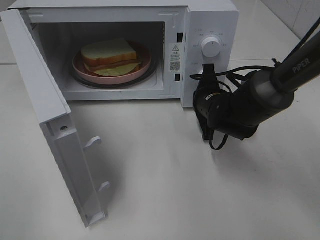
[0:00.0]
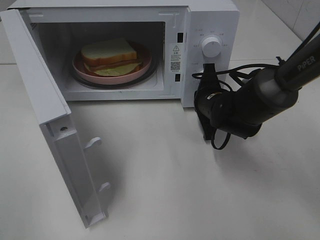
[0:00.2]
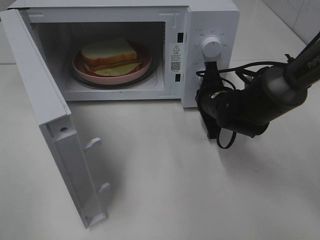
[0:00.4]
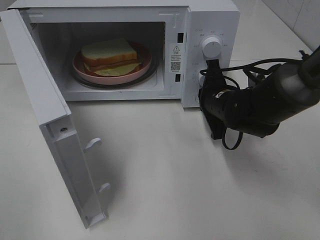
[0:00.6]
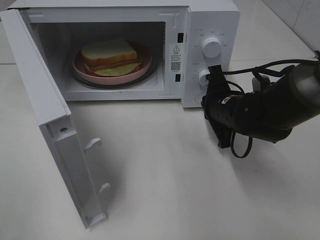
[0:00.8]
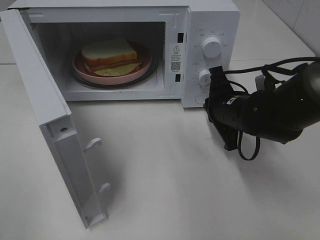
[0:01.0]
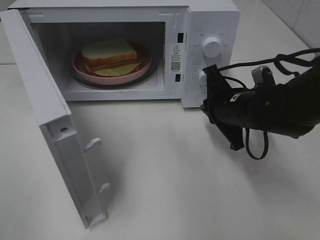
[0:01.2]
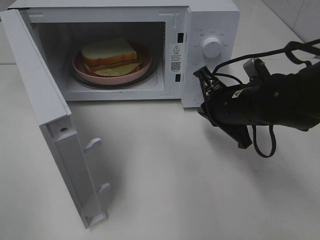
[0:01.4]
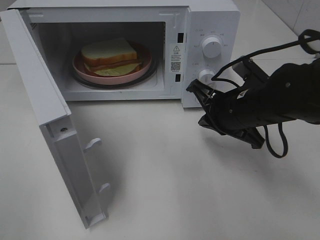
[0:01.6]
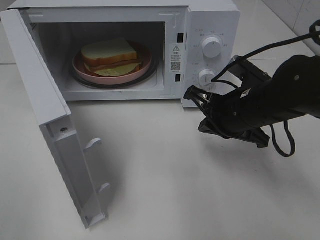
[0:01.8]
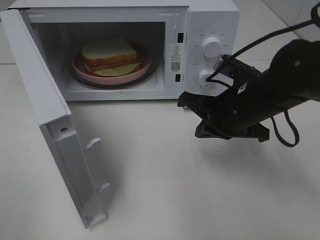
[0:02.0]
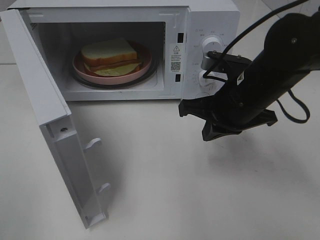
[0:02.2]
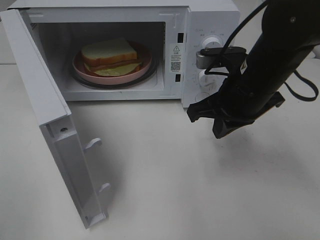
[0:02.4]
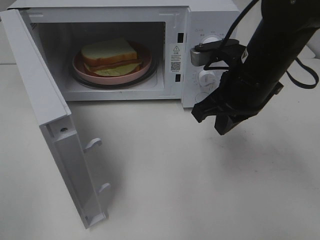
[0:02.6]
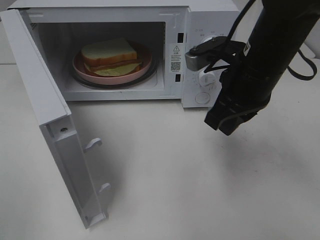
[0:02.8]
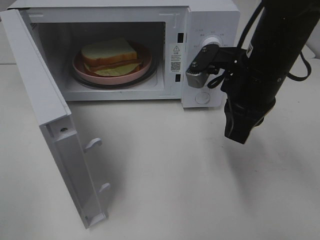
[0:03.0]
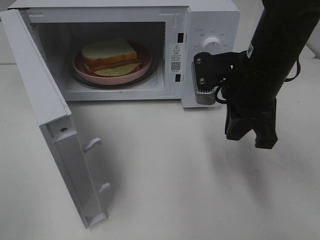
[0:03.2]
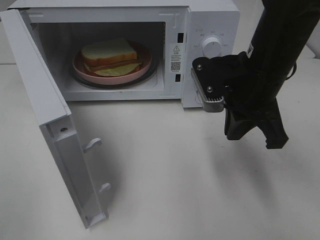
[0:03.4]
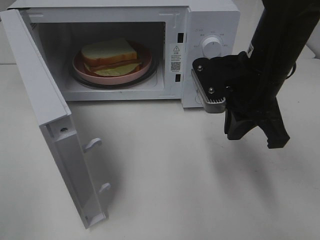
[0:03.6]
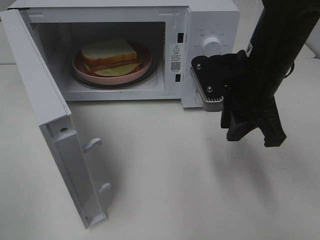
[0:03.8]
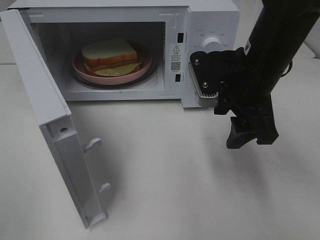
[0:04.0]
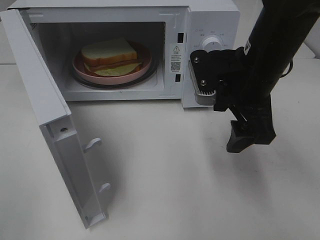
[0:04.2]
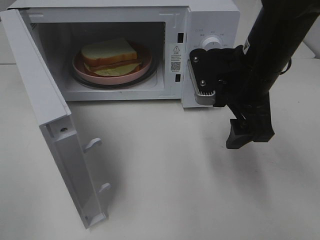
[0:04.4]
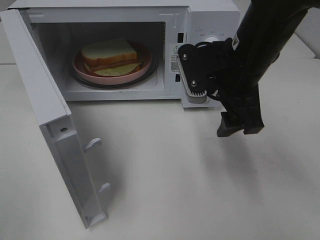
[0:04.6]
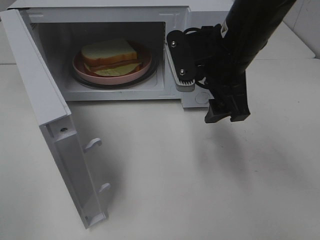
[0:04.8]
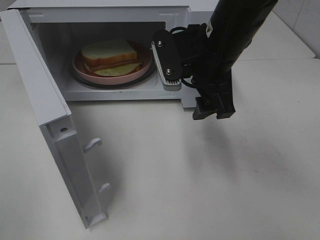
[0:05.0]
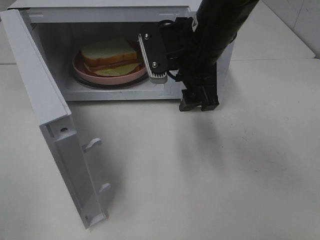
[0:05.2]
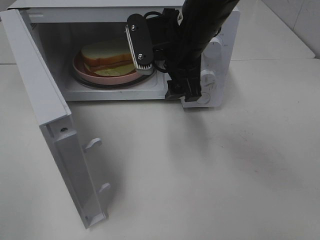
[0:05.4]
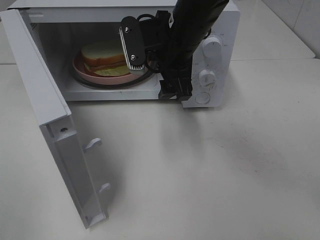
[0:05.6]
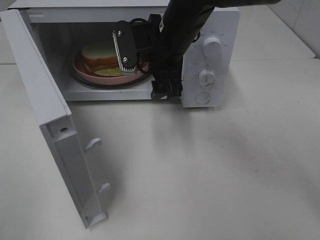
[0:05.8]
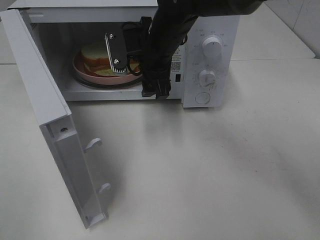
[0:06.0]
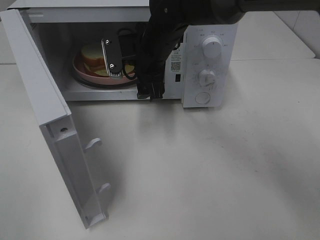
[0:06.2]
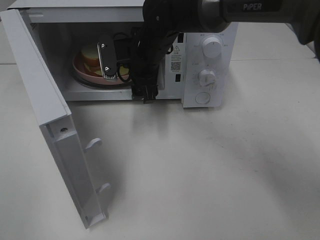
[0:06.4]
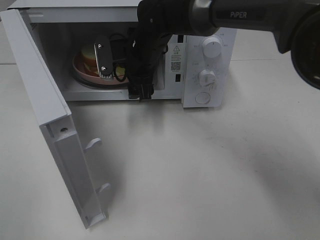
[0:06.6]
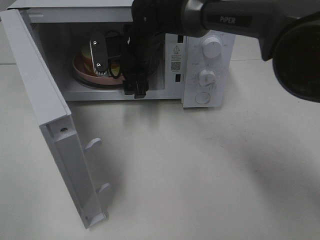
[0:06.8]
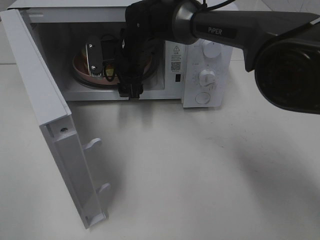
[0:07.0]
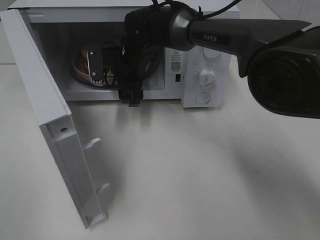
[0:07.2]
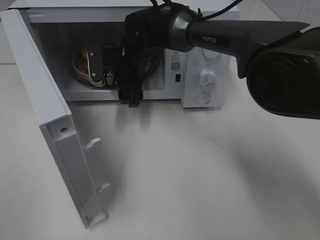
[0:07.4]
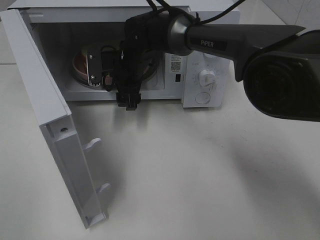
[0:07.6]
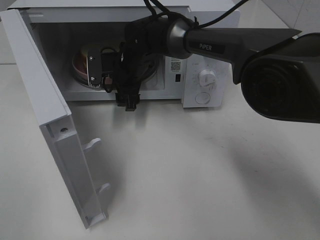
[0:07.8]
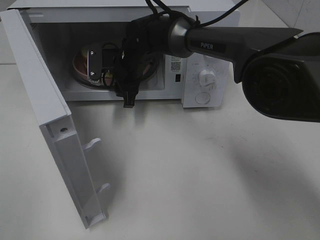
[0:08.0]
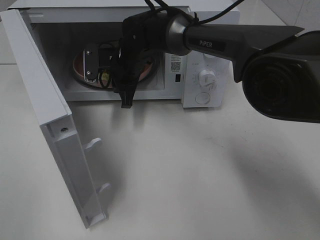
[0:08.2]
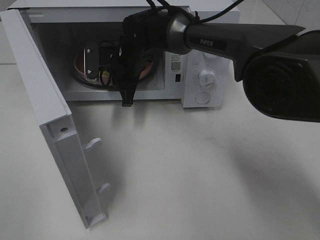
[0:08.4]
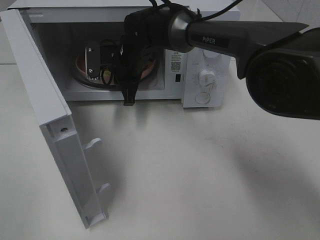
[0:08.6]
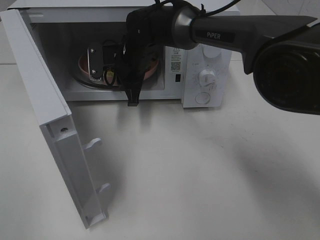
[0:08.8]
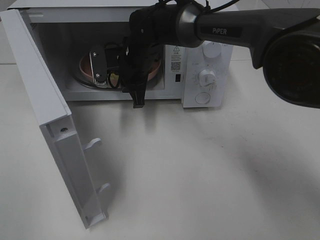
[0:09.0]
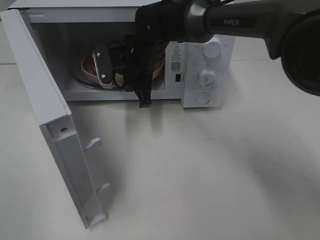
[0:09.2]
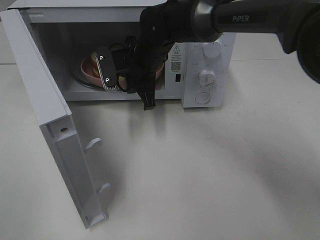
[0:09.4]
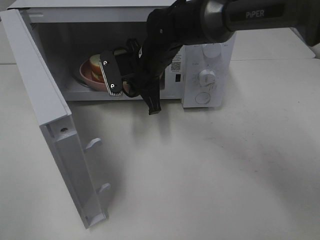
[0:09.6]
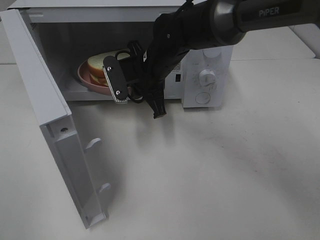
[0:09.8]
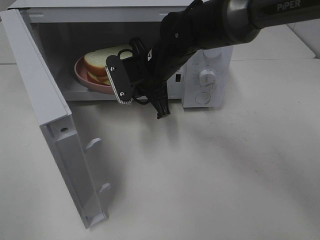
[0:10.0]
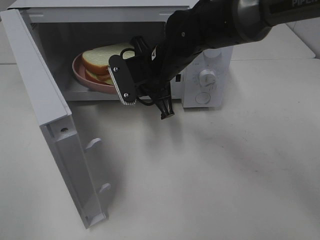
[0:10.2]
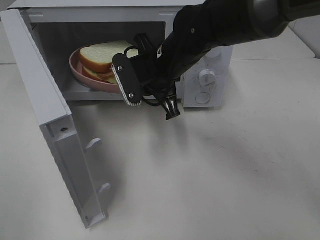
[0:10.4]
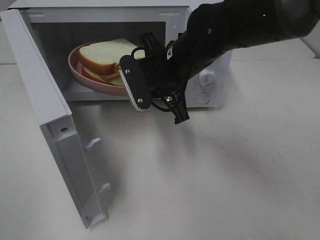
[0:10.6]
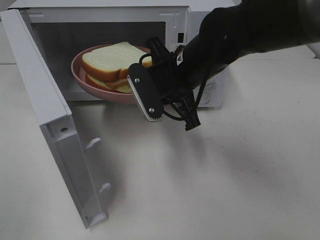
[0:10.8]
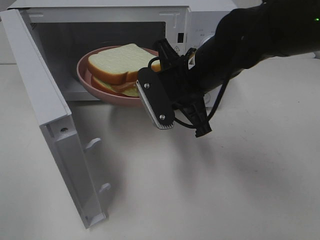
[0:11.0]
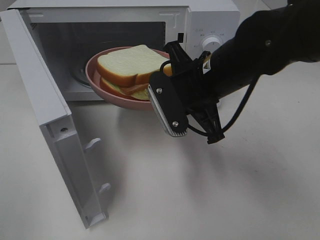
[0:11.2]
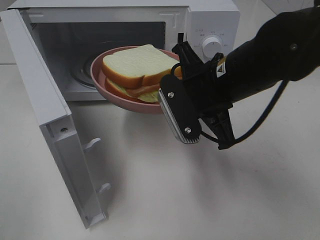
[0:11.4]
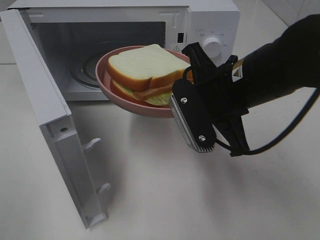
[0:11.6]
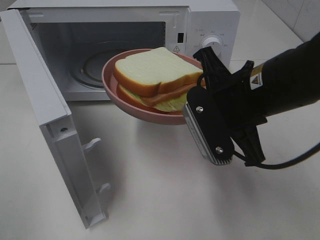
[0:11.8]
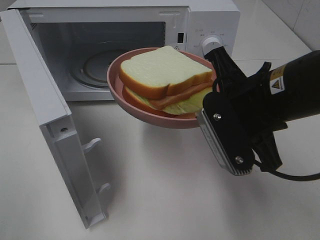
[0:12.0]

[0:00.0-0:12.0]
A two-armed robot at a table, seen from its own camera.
Task of the whole recording: Heat Sandwich.
Step, 0:01.2 to 0:09.0: Right hand: grab the plate with the sandwich.
0:00.0 to 0:01.6: The right gripper moves backward and upward, roughly 10 cm.
0:01.6 to 0:03.0: The right gripper goes about 10 cm upward.
0:03.0 to 0:04.4: The right gripper opens.
0:04.4 to 0:06.0: The right gripper is displaced to the left and forward by about 15 cm.
0:06.0 to 0:07.6: The right gripper goes some 10 cm downward, forward and to the left.
0:07.6 to 0:09.0: The right gripper closes.
0:09.0 to 0:10.4: The right gripper is displaced backward and to the right by approximately 10 cm.
0:10.4 to 0:12.0: The right gripper goes approximately 20 cm backward and to the right.

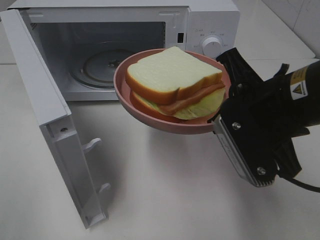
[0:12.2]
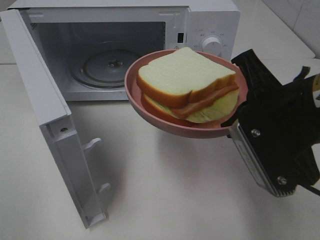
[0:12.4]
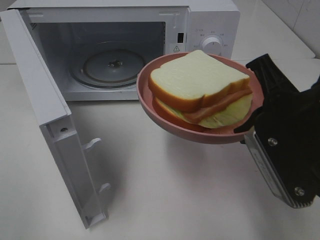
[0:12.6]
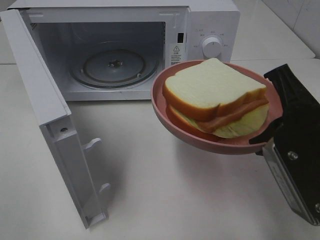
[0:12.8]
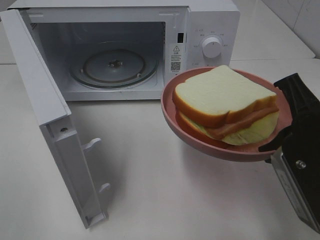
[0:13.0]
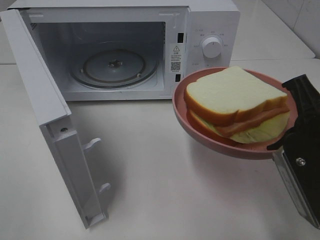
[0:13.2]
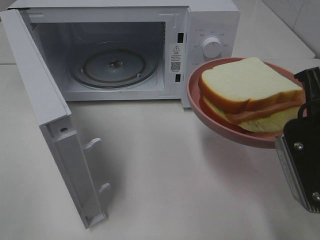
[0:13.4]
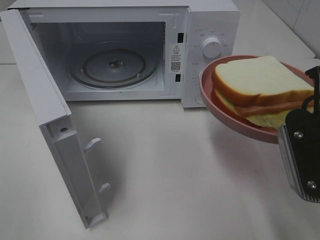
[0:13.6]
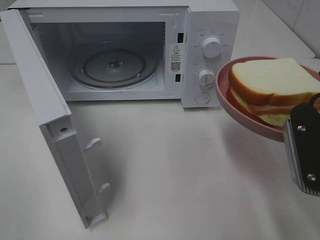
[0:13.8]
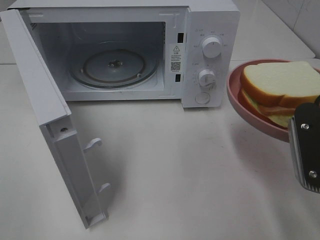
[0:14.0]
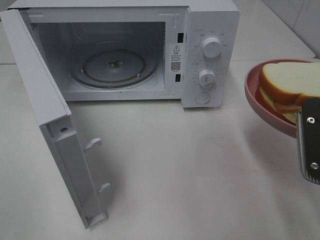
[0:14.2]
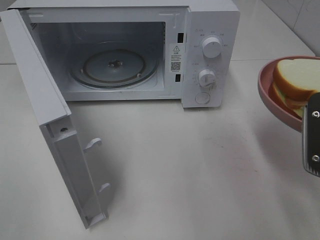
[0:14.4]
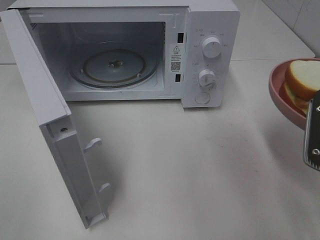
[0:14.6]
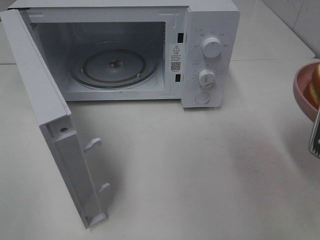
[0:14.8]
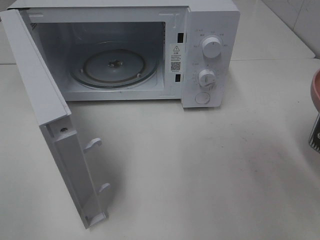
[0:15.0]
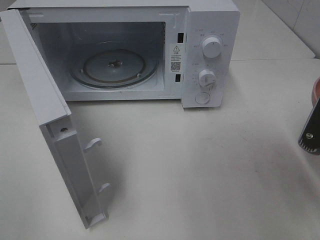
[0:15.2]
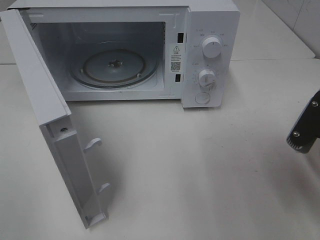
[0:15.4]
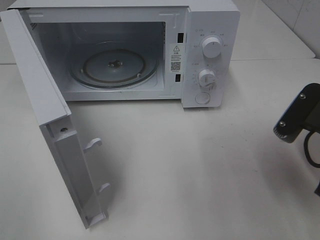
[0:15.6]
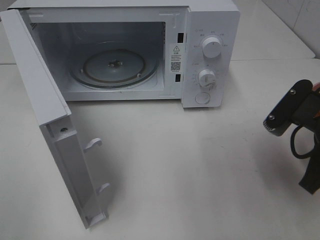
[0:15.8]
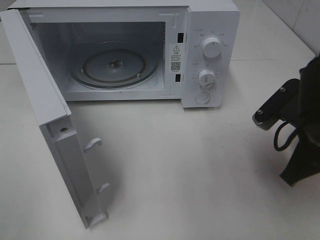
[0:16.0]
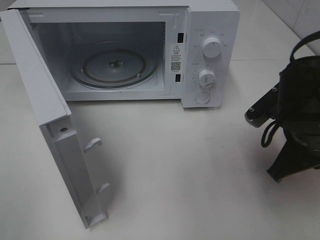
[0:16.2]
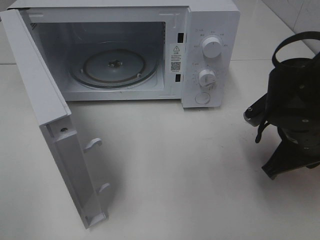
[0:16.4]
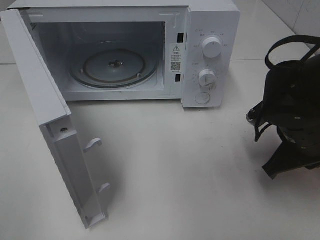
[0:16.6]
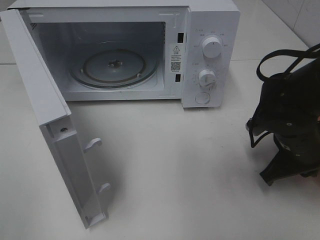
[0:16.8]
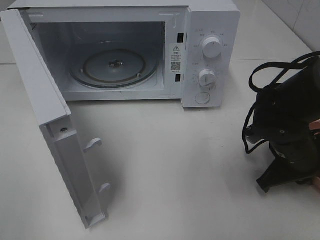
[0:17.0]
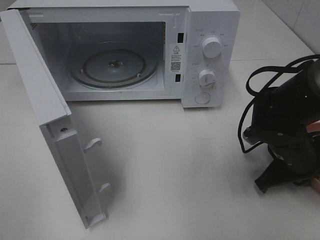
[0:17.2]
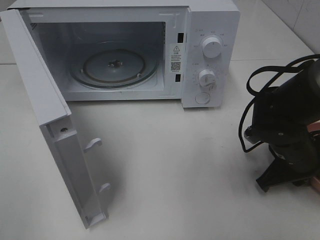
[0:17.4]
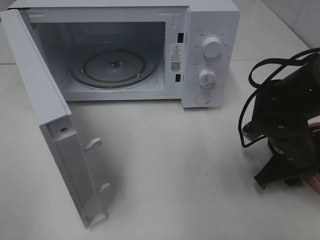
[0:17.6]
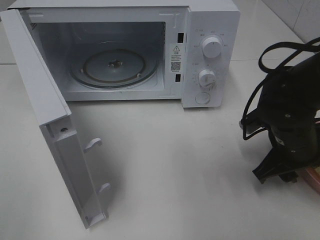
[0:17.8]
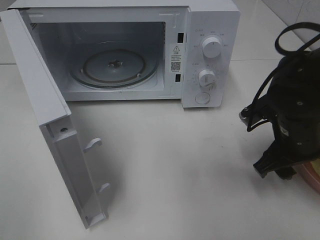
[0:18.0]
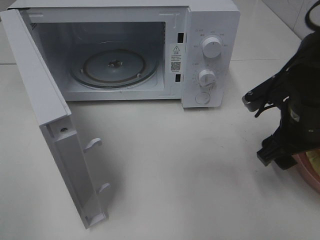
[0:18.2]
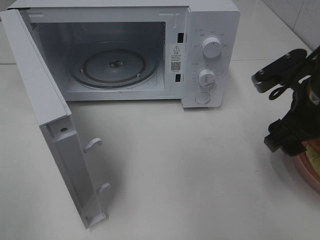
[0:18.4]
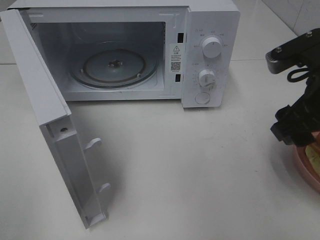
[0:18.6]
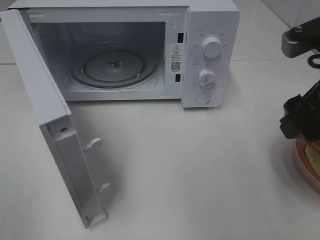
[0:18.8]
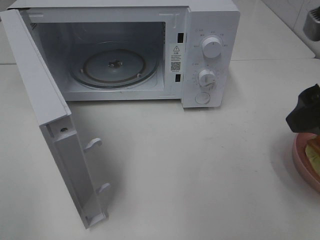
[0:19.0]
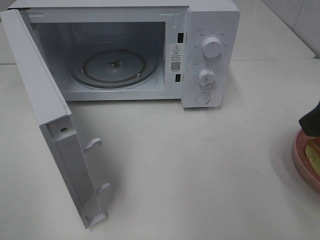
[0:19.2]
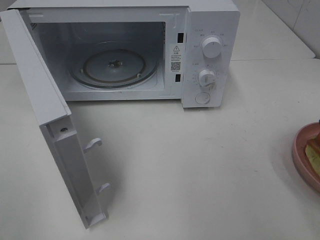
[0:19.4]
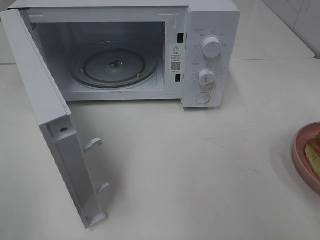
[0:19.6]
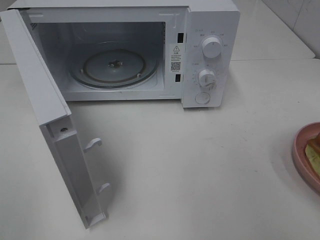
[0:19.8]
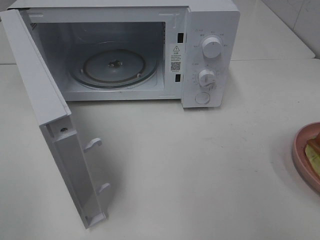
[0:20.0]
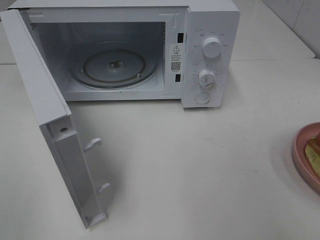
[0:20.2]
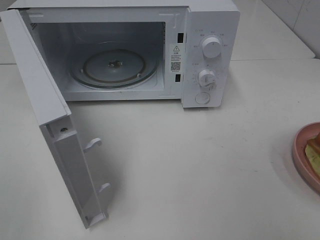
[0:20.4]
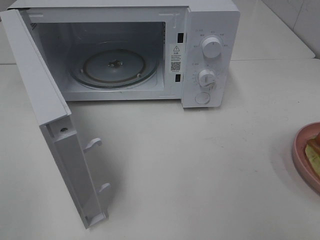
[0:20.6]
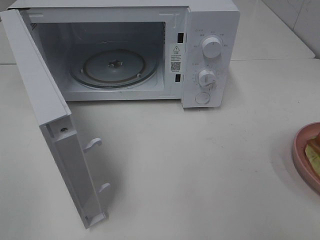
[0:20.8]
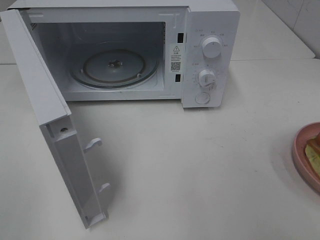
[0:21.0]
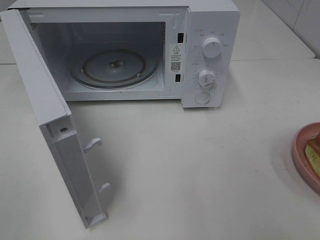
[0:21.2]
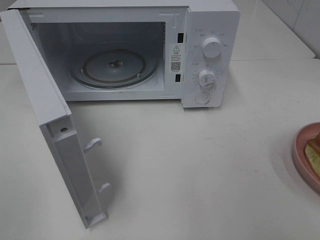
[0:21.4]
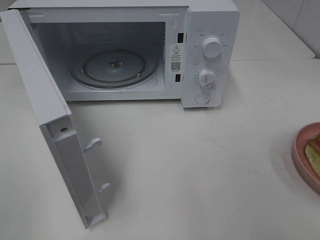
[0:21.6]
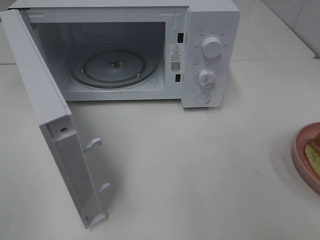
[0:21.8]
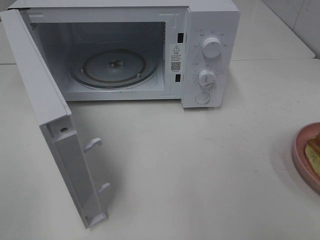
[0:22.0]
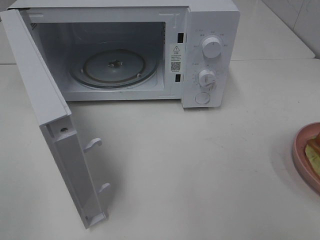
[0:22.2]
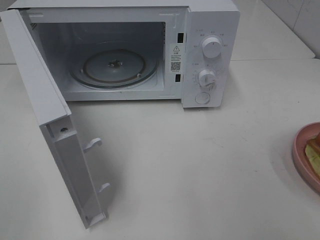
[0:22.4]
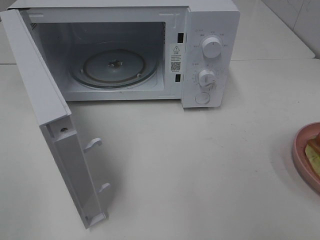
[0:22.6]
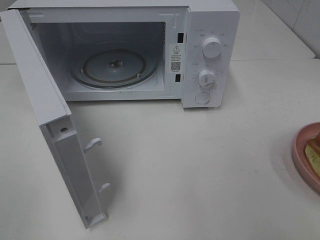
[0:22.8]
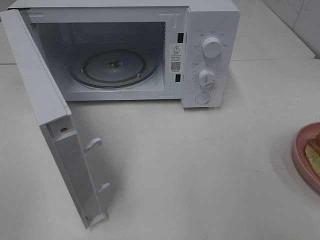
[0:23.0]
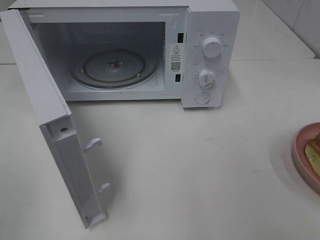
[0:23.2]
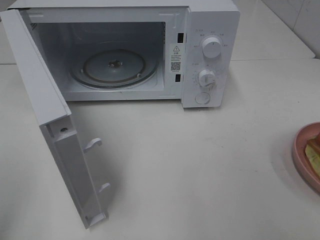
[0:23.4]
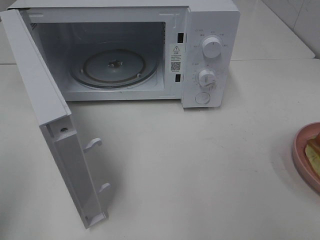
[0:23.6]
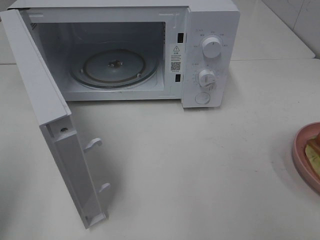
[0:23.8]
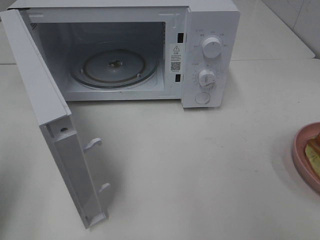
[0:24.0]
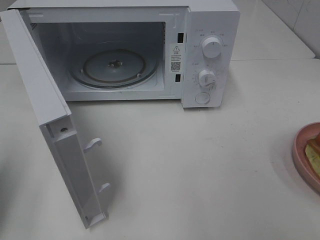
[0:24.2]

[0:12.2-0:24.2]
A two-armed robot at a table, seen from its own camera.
Task of the whole recording: Heat Sandwich.
Step, 0:12.2 to 0:19.0: Right hand: place the plate on the table.
0:12.2 to 0:13.8: The right gripper goes approximately 5 cm to the right.
0:15.2 to 0:16.6: The right gripper travels forward and downward by about 10 cm.
0:16.6 to 0:18.2: The right gripper opens up.
0:18.2 to 0:19.8: The right gripper goes approximately 25 cm backward and upward.
0:21.2 to 0:22.6: Neither gripper changes place.
0:22.6 to 0:24.2: The left gripper is displaced forward by about 15 cm, and closes up.
